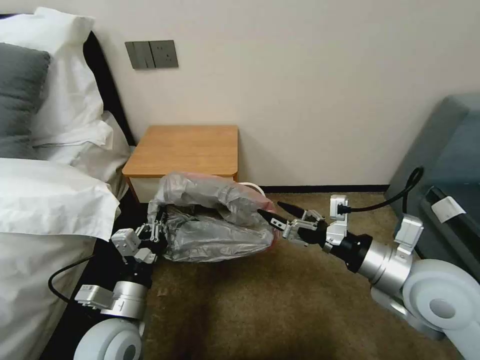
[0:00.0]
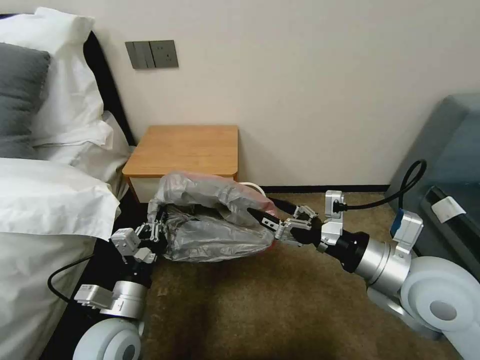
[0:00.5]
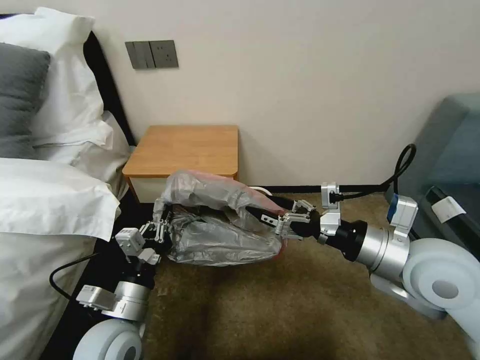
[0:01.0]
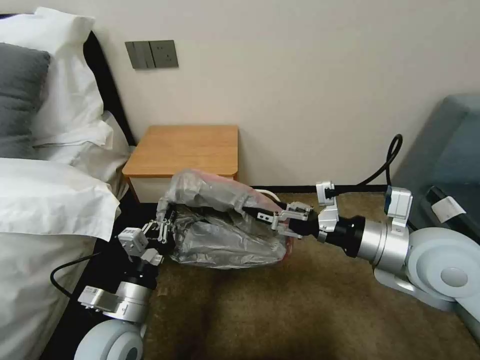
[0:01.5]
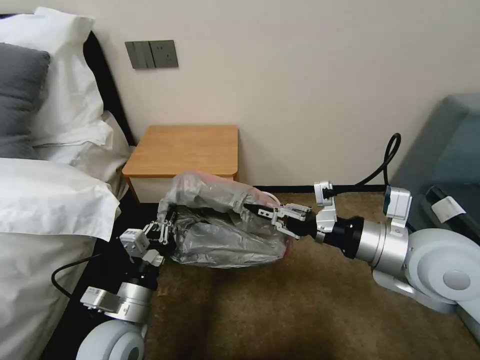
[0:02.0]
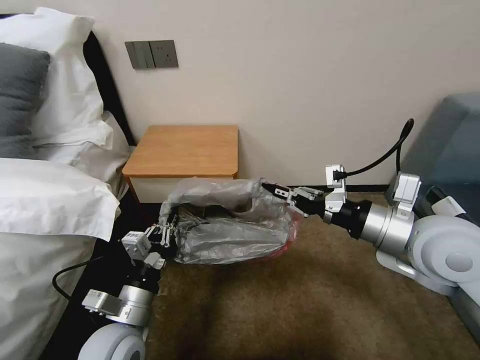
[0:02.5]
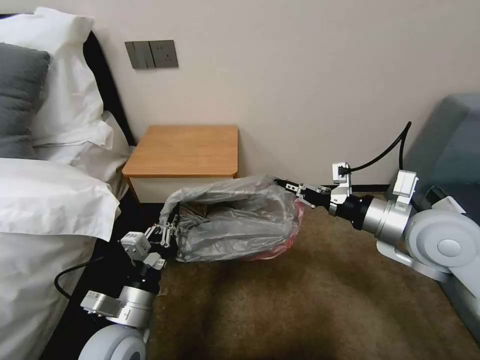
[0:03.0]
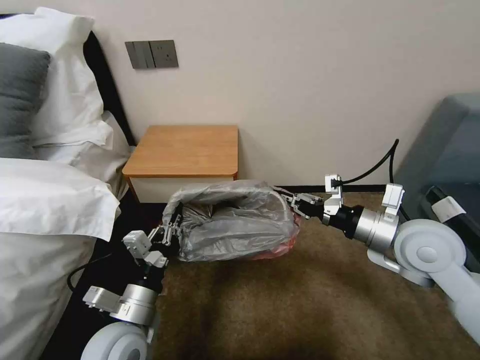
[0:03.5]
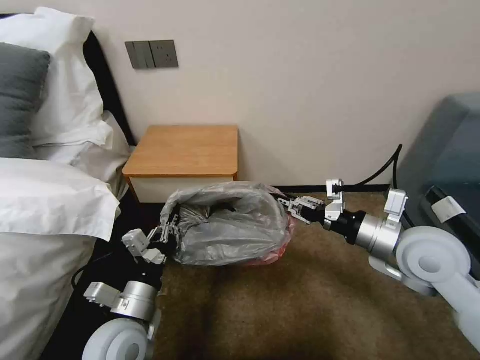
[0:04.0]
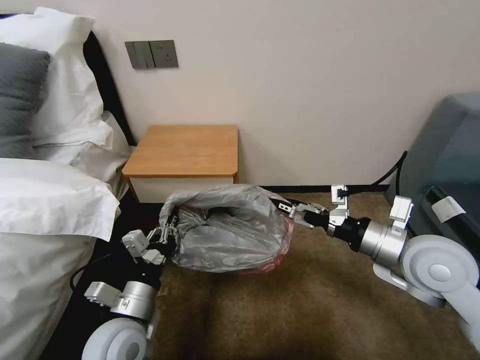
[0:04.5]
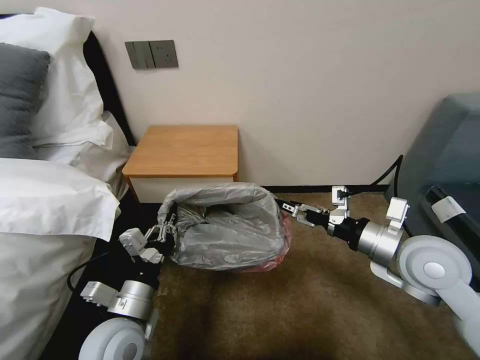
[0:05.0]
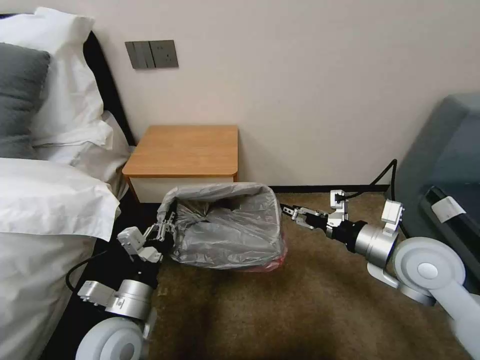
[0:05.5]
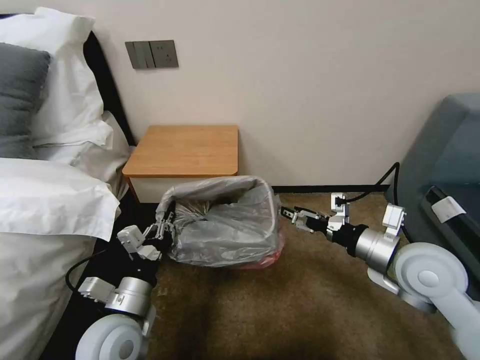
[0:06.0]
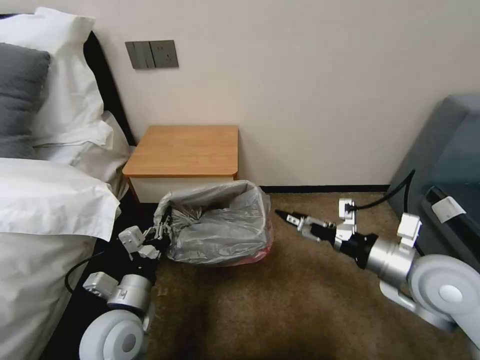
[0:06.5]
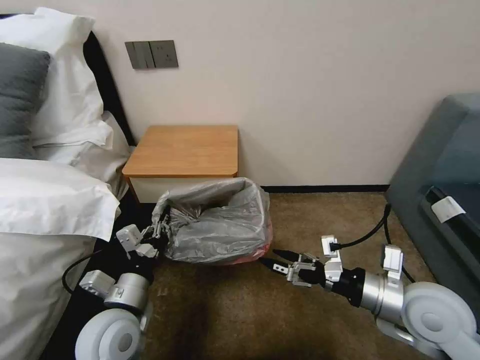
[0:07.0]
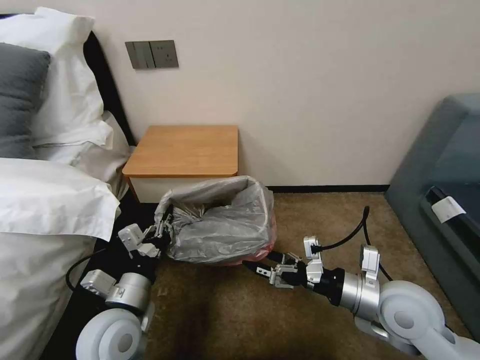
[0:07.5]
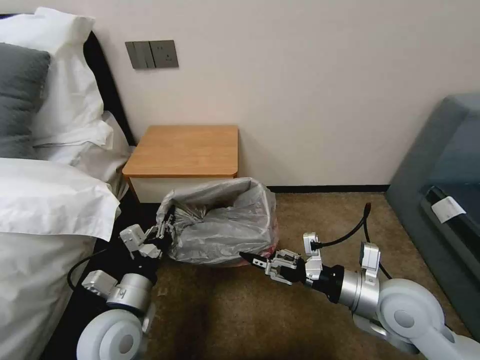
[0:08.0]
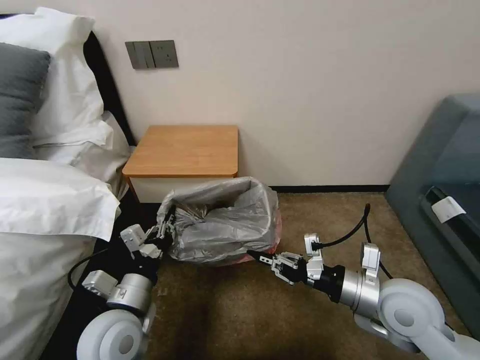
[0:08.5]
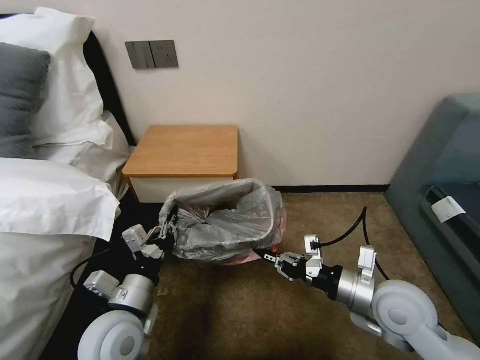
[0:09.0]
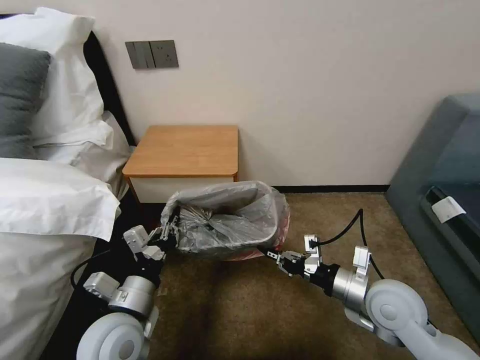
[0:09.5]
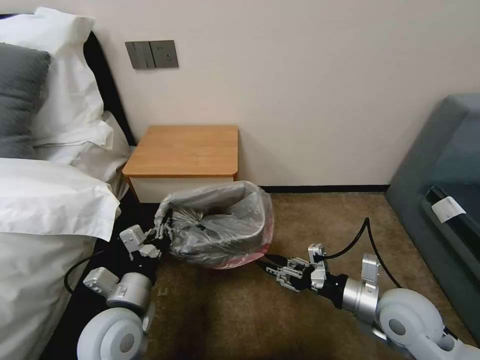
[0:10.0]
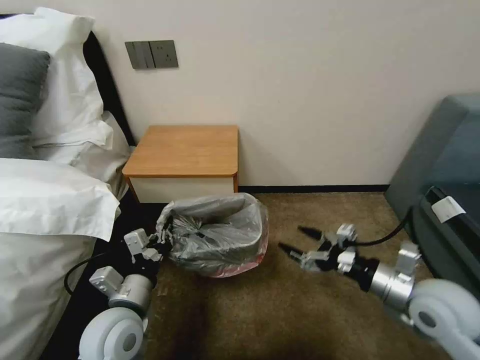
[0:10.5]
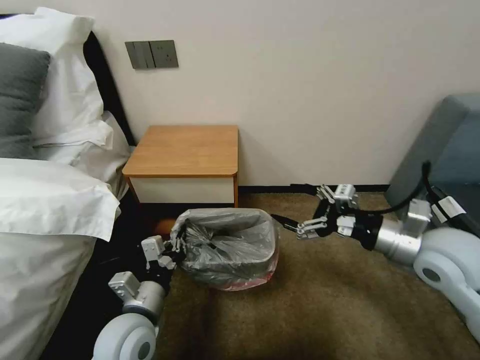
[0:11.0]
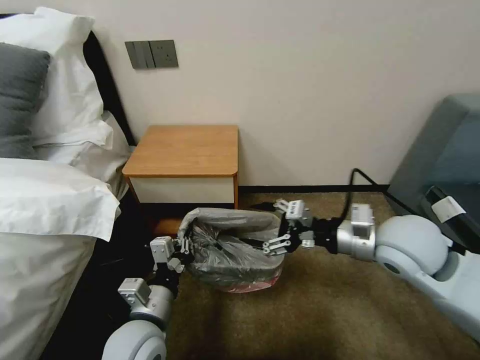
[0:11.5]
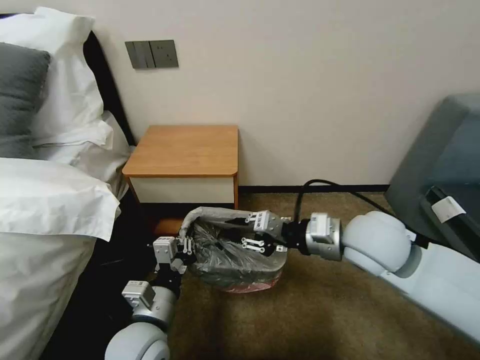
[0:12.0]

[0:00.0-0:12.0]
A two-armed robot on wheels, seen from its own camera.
Task of the whole recording: Pick up the garbage bag from the table and place it over the trash can.
0:00.0 to 0:02.0: The right gripper changes place by approximately 5 cm, and closes its fingers.
0:02.0 to 0:04.0: The right gripper moves about 5 cm.
0:04.0 to 0:06.0: The right gripper opens up.
0:06.0 to 0:08.0: The right gripper shifts by some 5 cm, and closes.
0:08.0 to 0:10.0: The right gripper closes and opens again.
0:10.0 to 0:12.0: The left gripper changes place by some 5 cm. The right gripper goes about 15 cm upward, forward and to the left, and opens and closes again.

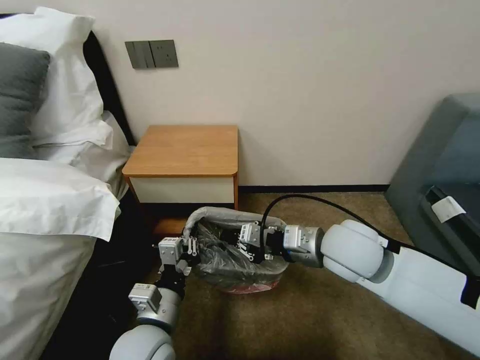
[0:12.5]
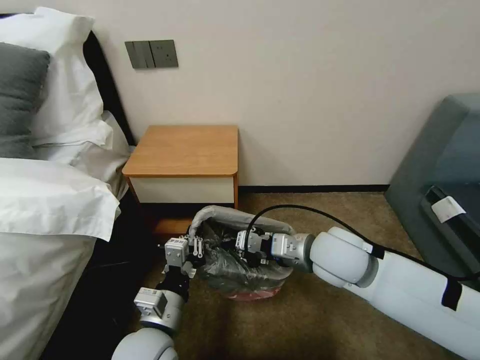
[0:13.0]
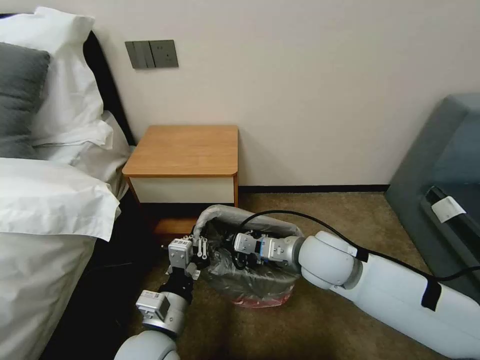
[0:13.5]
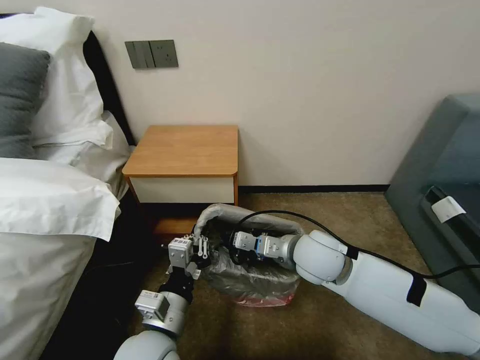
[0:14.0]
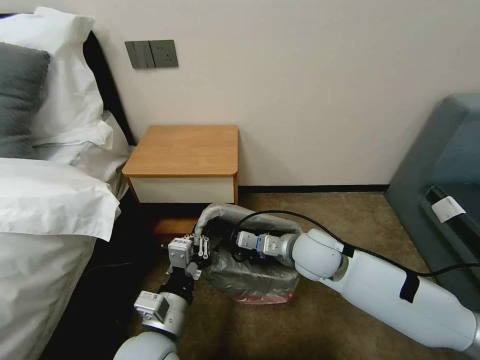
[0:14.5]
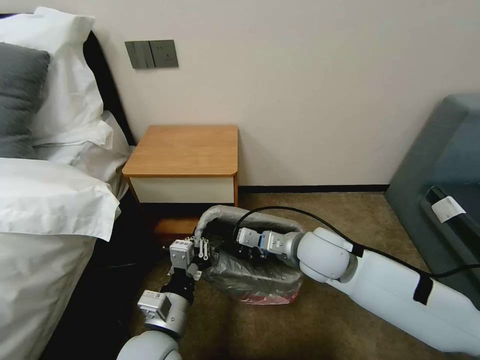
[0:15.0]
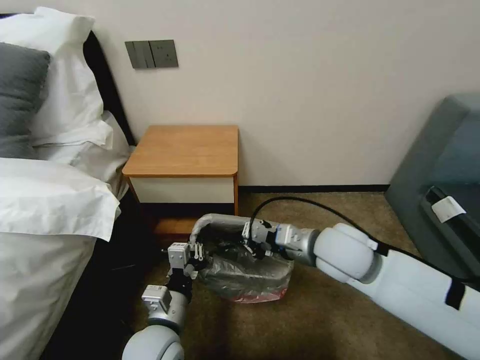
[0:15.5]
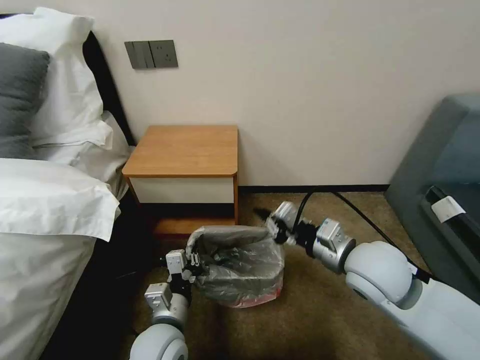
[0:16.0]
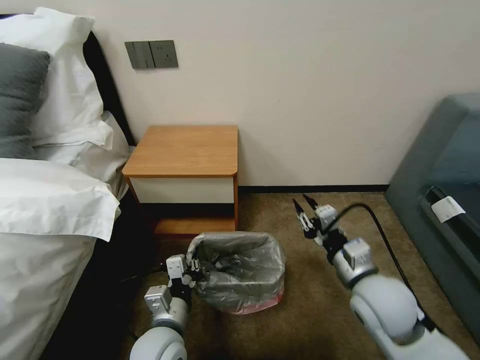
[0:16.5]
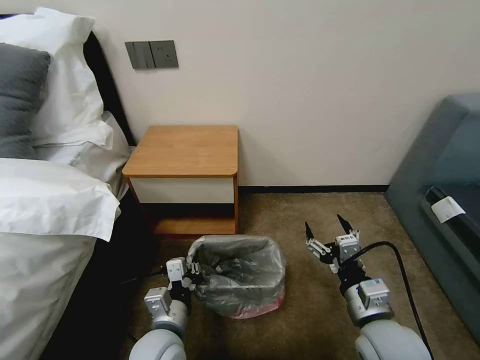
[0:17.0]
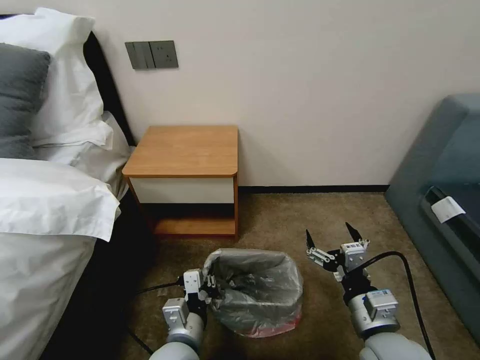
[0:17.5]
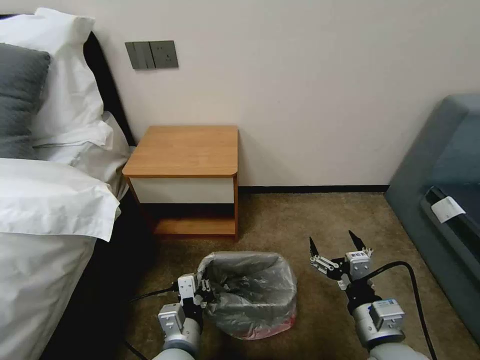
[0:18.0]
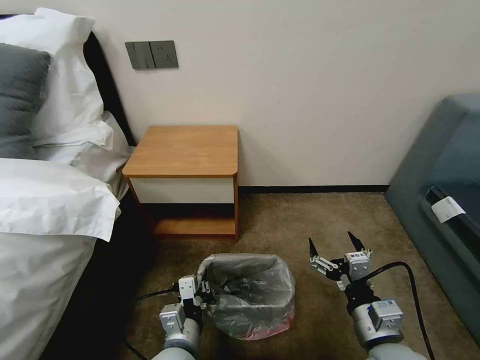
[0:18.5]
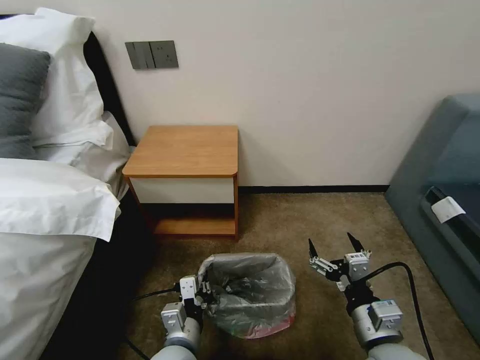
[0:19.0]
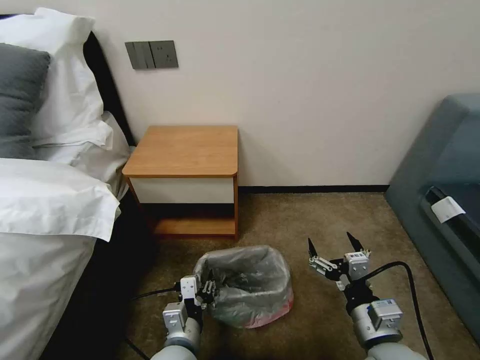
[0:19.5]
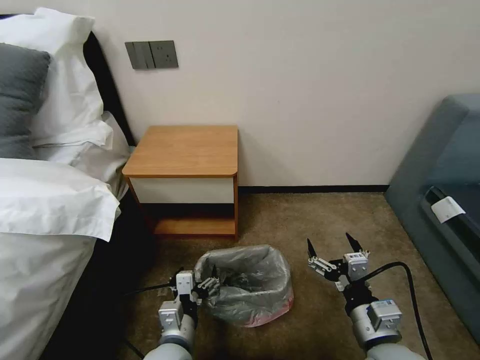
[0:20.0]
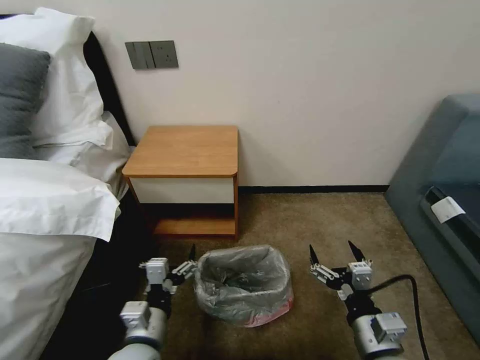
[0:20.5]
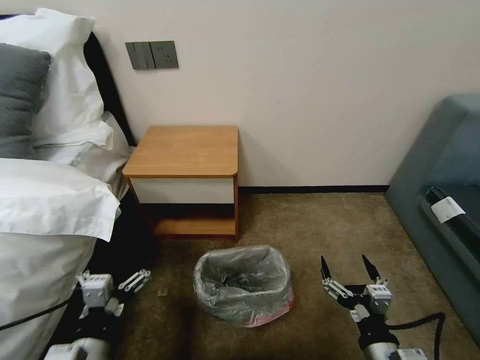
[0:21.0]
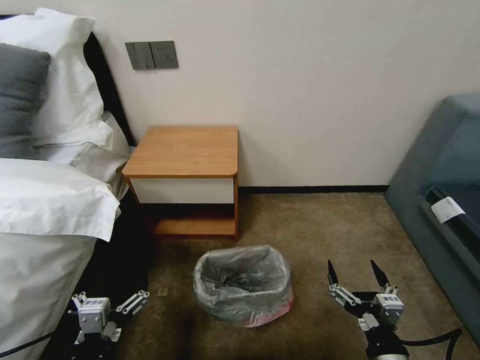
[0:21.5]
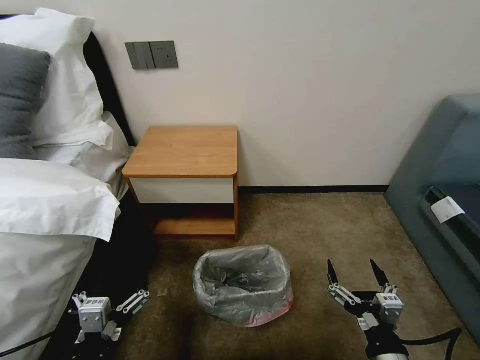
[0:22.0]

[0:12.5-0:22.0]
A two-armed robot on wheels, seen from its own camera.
Task of the whole recording: Pick up the garbage bag from the table and place it over the trash can.
0:12.5 to 0:14.5: The right gripper heads downward, covering about 10 cm.
0:14.5 to 0:16.5: The right gripper travels backward and to the right by approximately 15 cm. Meanwhile the left gripper shifts some 5 cm downward.
0:16.5 to 0:18.0: The right gripper goes some 10 cm backward, and opens up.
0:18.0 to 0:20.0: The left gripper opens its fingers.
0:20.0 to 0:22.0: The right gripper heads backward, covering some 5 cm; the left gripper moves to the left, backward and upward, about 15 cm.
